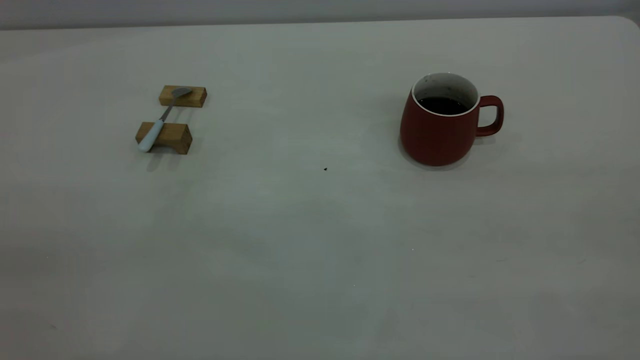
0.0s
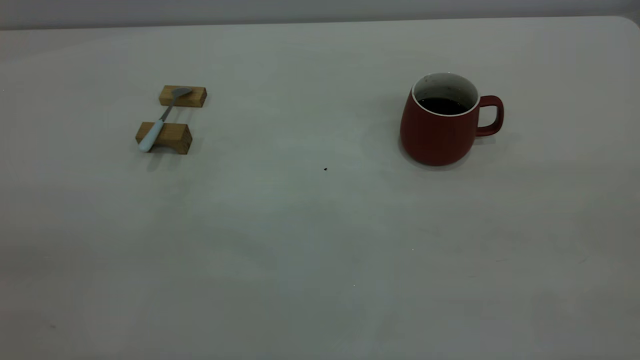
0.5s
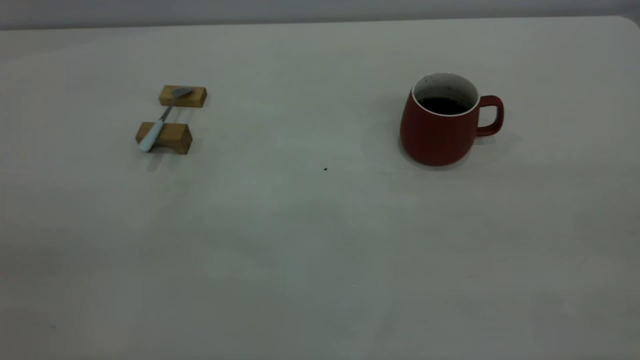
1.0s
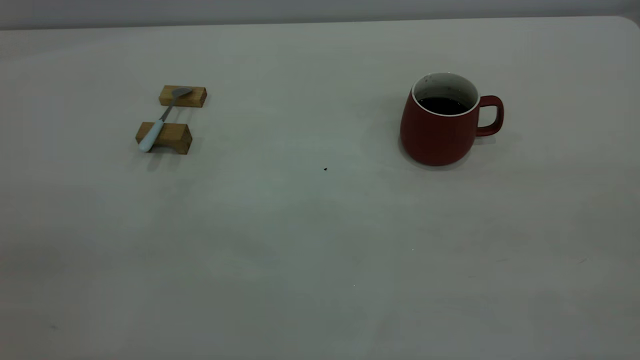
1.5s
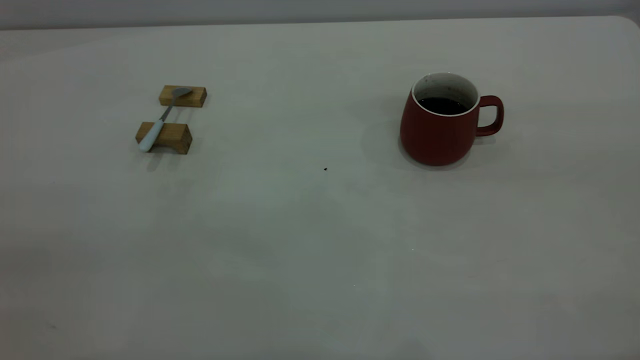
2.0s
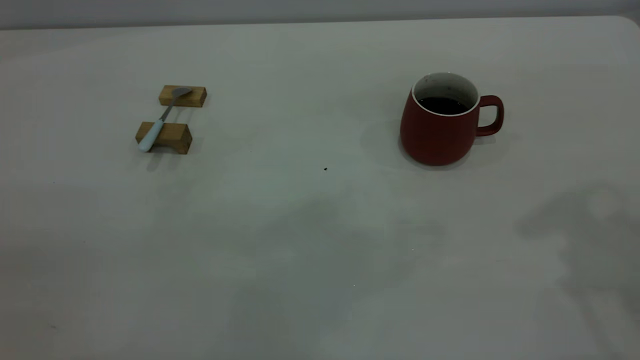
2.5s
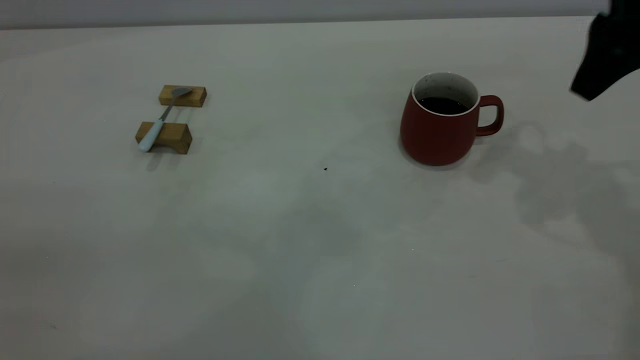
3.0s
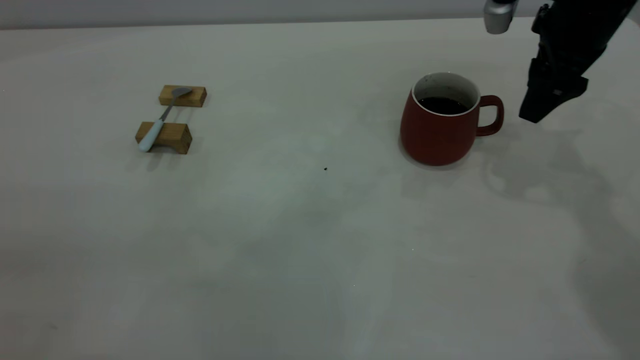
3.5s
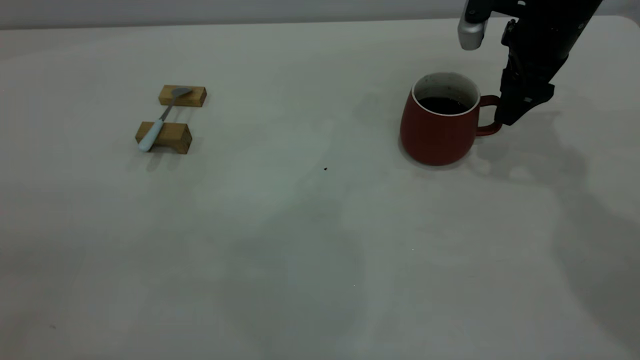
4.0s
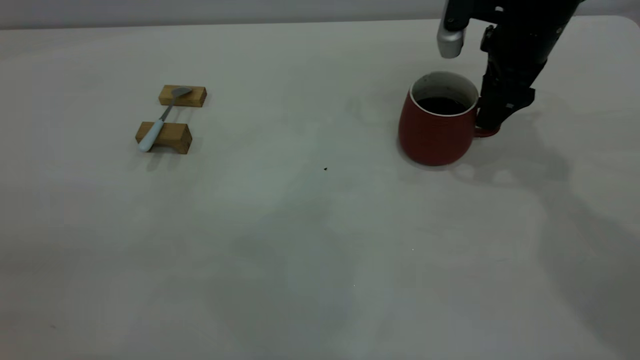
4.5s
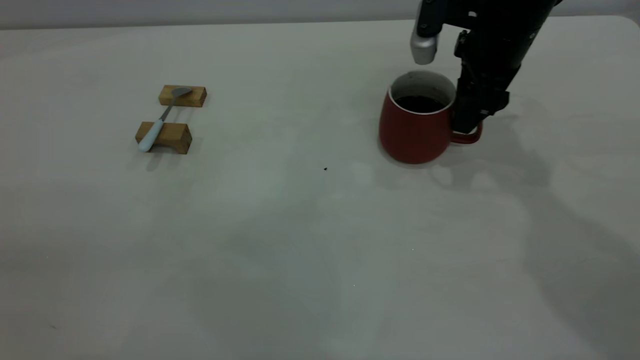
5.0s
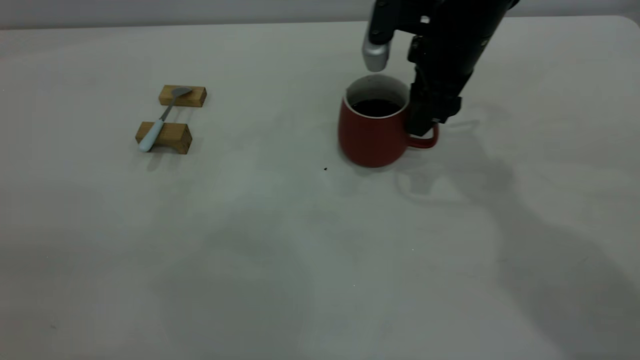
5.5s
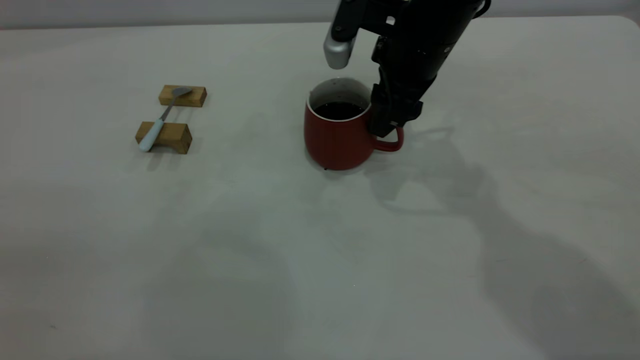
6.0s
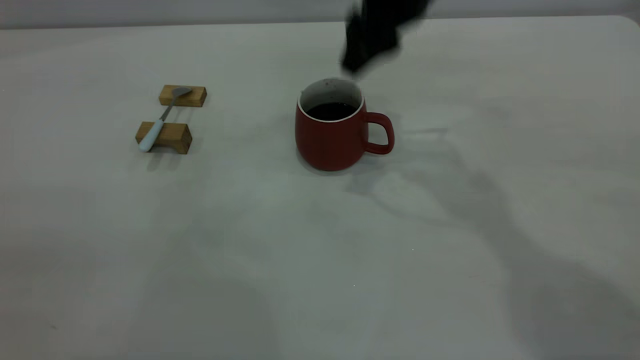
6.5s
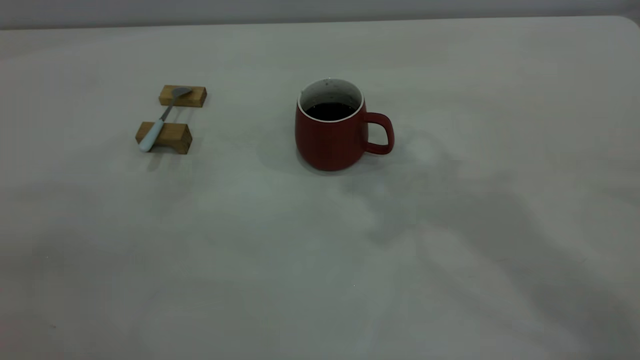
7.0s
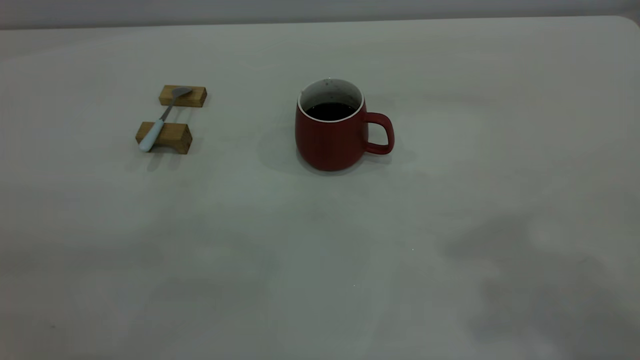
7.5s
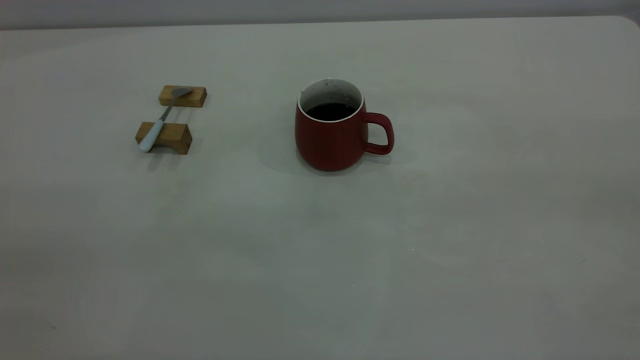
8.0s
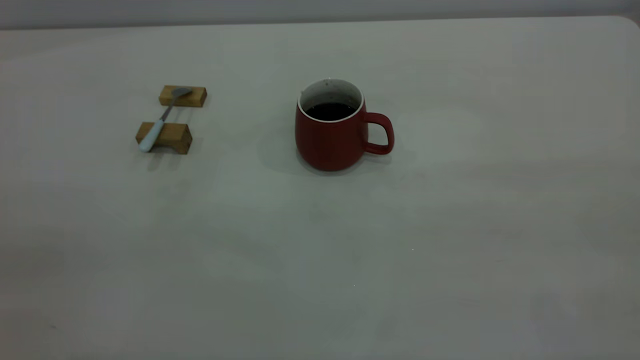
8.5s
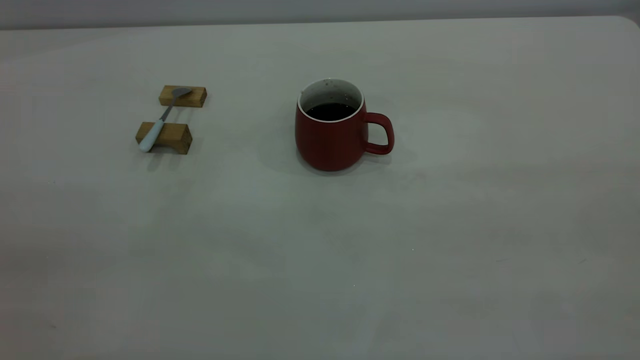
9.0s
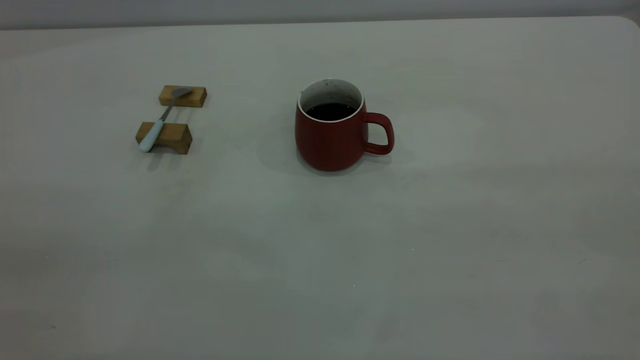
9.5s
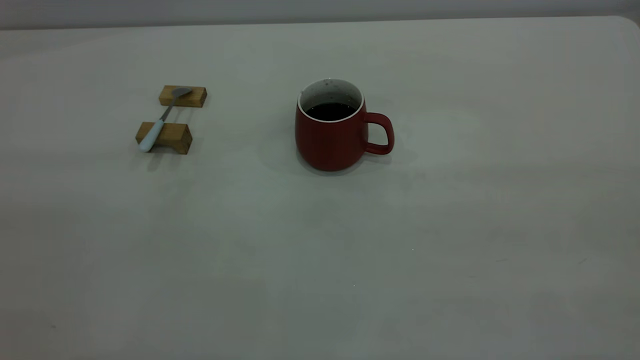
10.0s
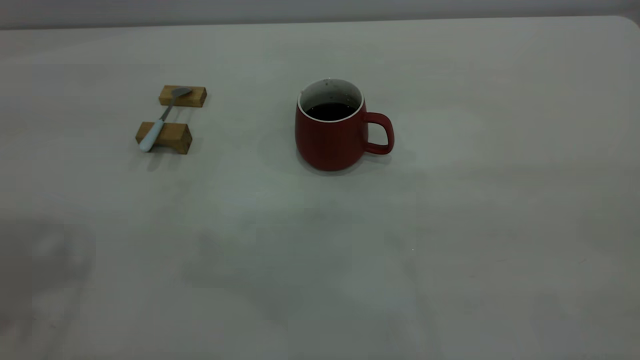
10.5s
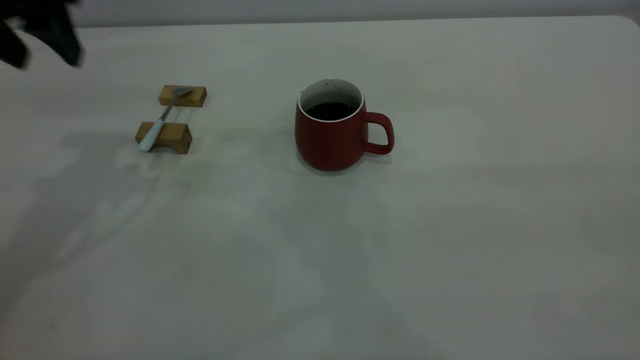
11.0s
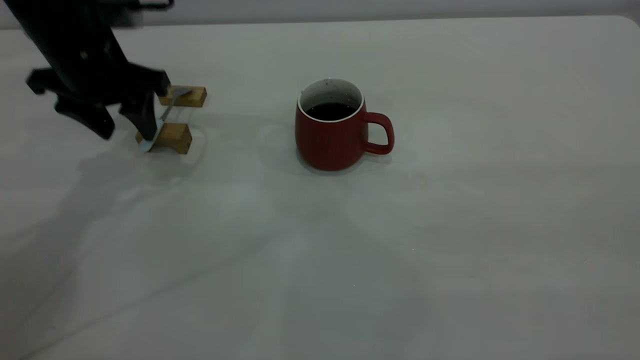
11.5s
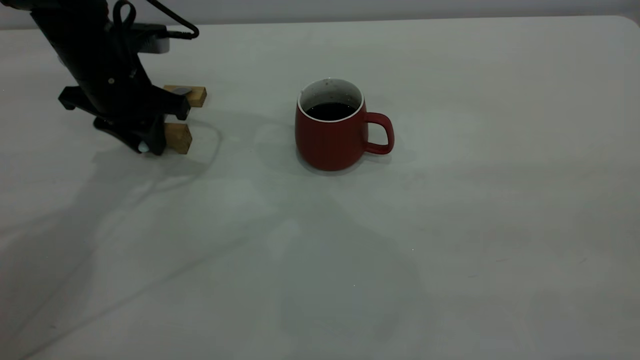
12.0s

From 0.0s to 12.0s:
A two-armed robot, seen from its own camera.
Step, from 0.0s to 6.0s: Move the cup with coffee to the center of view.
From 2.0s to 4.0s: The right gripper goes approximately 40 cm forward and downward.
From 4.0s to 6.0s: The right gripper is displaced to the left by about 15 cm, and closes its fingers.
From 6.0s to 8.0s: The right gripper shifts approximately 50 cm backward, upward and to the right.
From 10.0s to 12.0s: The left gripper travels forward and downward by roughly 50 cm, and closes its fingers.

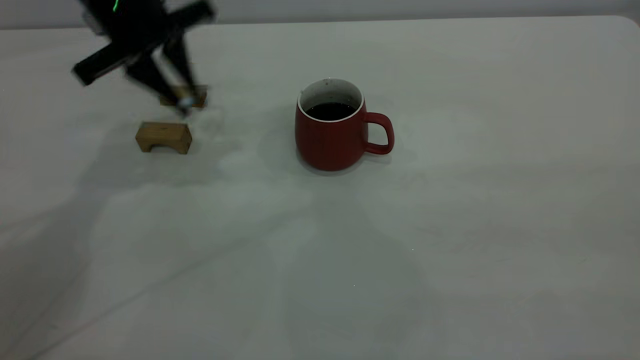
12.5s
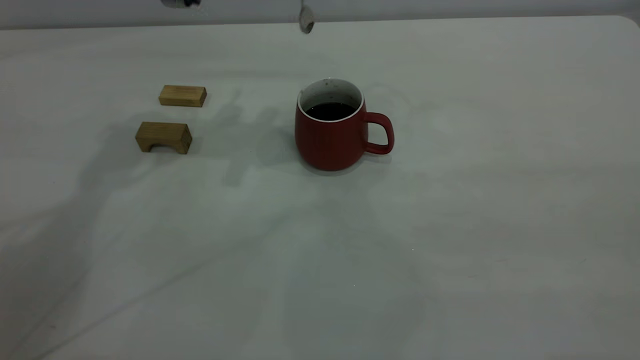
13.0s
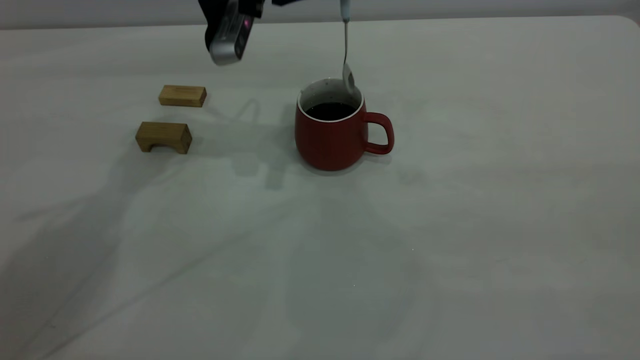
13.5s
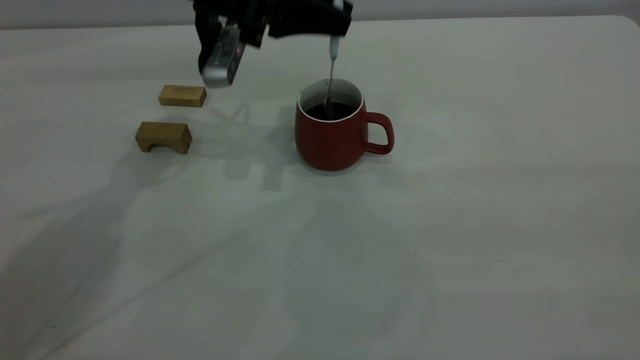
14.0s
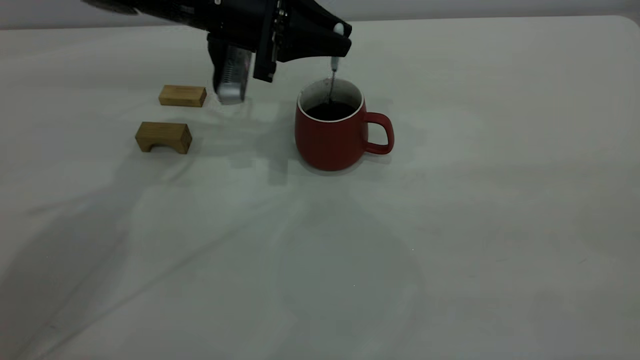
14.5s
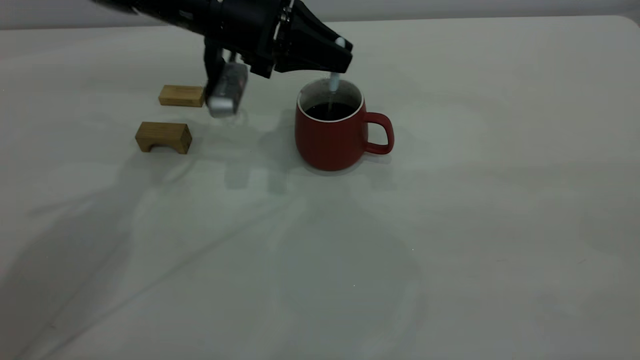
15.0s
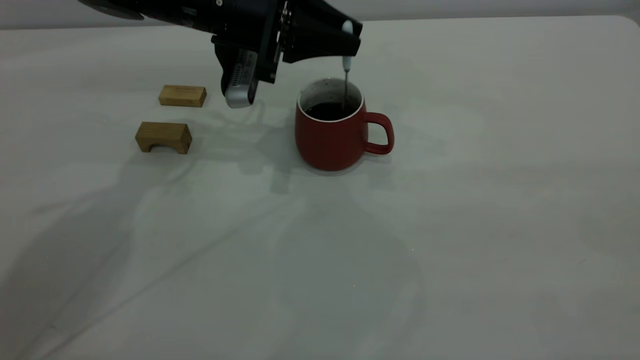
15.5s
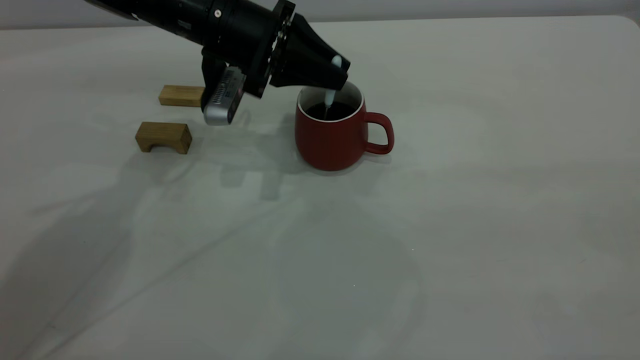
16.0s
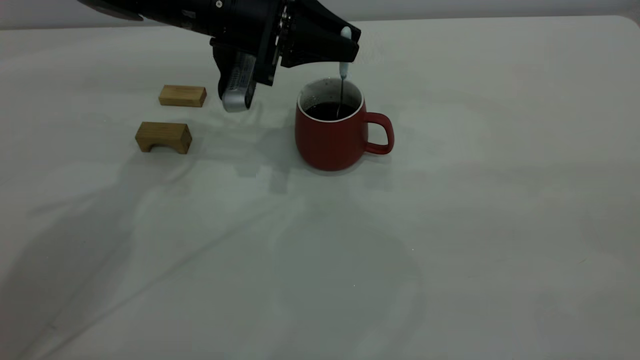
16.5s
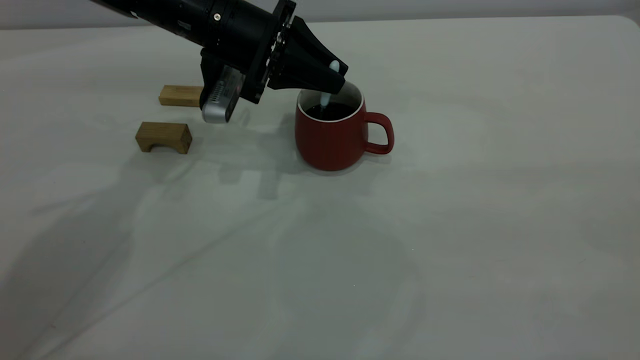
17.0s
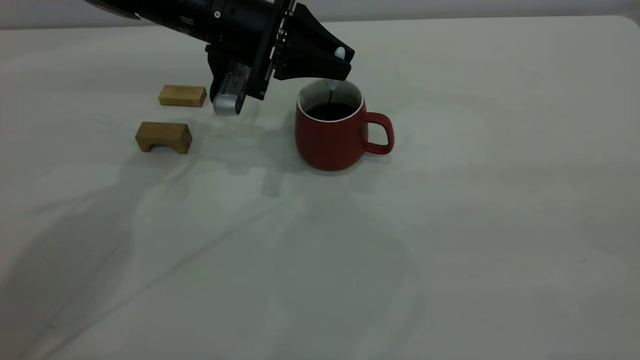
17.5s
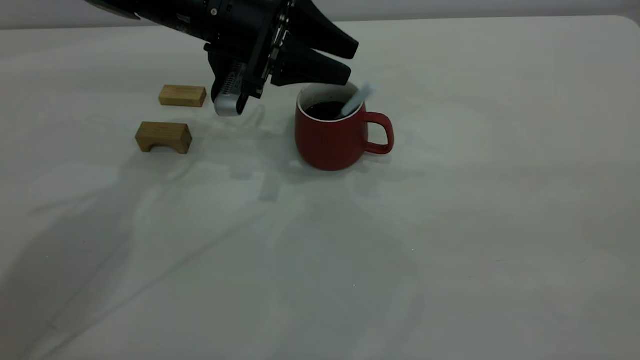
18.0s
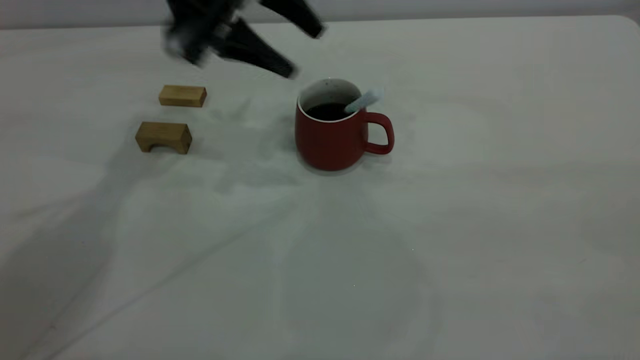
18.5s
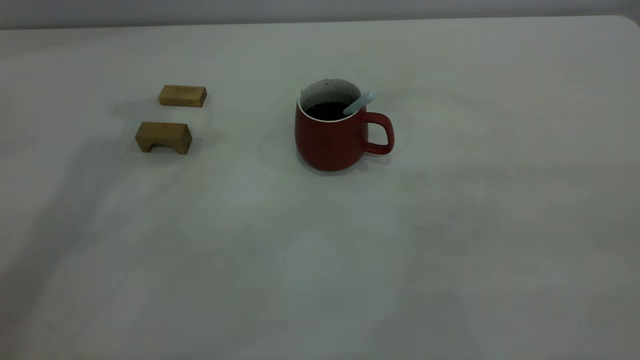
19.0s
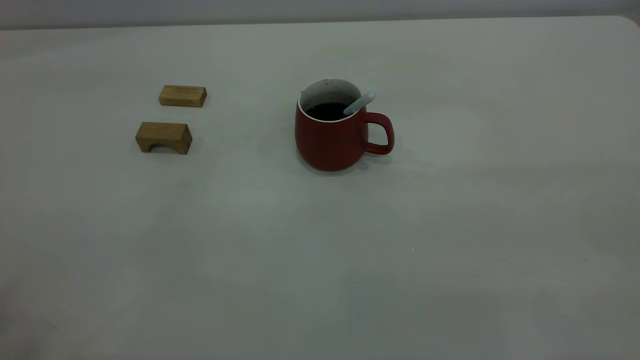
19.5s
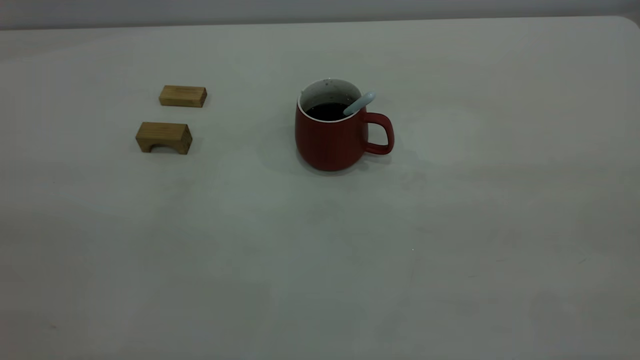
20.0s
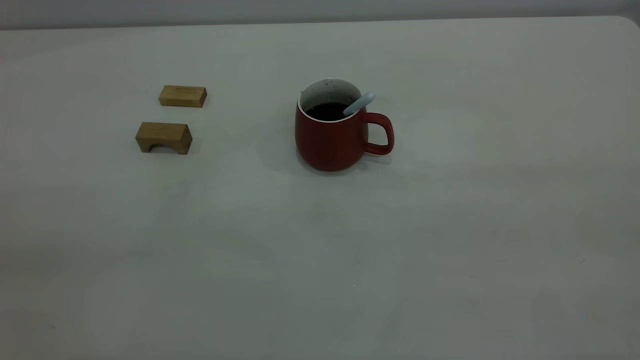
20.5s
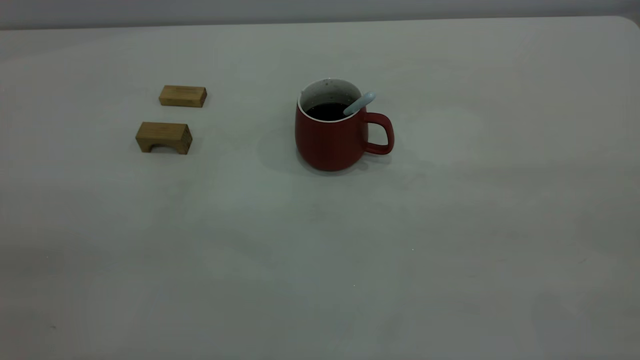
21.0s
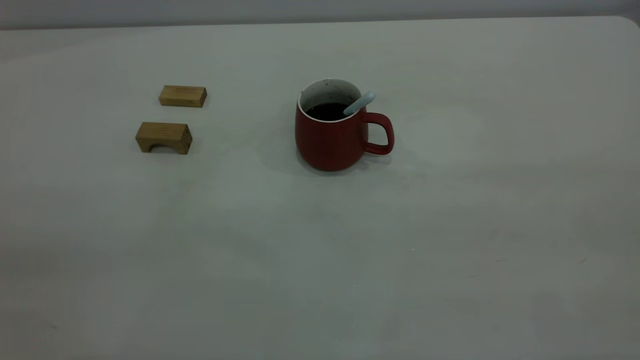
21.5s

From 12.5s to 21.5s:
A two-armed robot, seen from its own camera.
Step, from 13.0s to 18.5s: Stir the coffee in the cup.
From 12.5s to 14.5s: The left gripper heads to the right and downward, covering some 10 cm.
From 14.5s to 17.0s: The grippers stay close to where they were, moving slightly.
From 17.0s to 19.5s: The left gripper heads upward, backward and to the left, covering approximately 50 cm, and opens and closes again.
